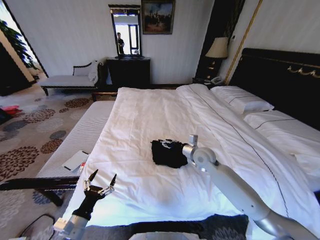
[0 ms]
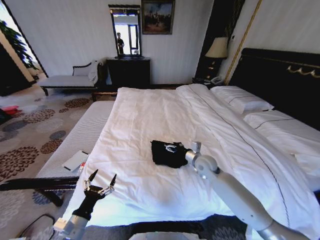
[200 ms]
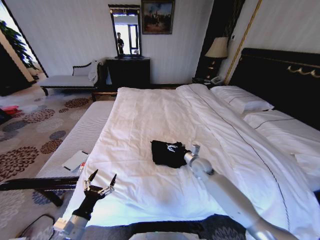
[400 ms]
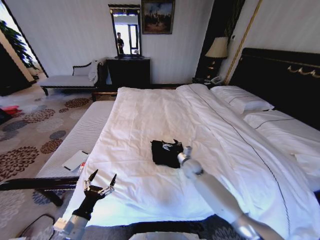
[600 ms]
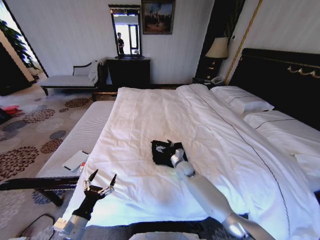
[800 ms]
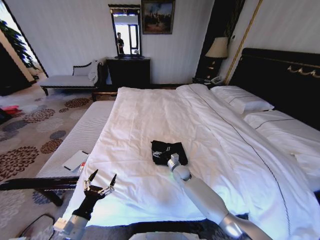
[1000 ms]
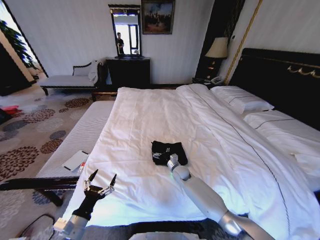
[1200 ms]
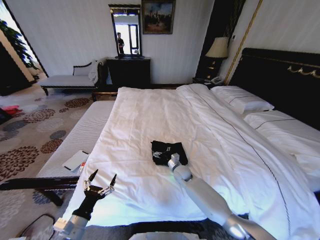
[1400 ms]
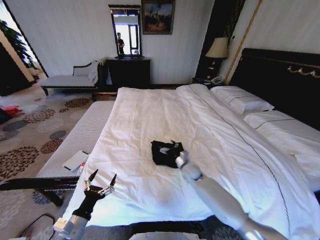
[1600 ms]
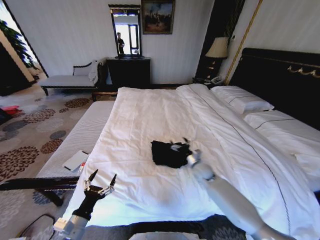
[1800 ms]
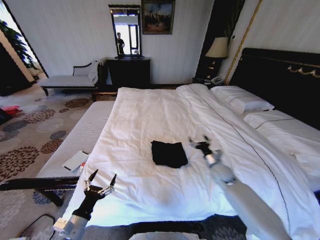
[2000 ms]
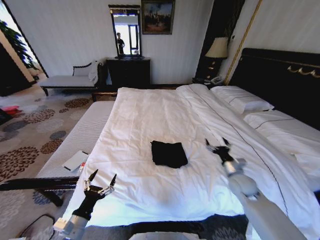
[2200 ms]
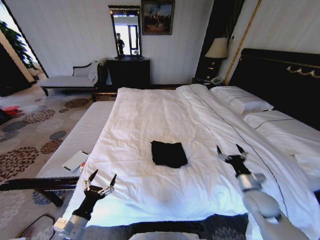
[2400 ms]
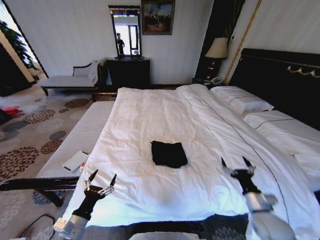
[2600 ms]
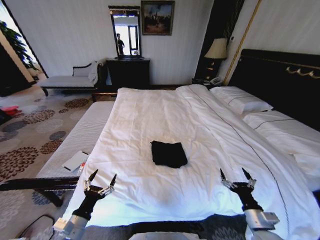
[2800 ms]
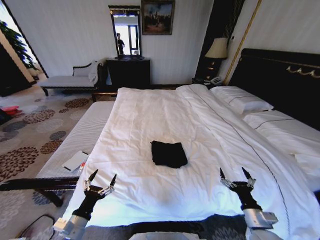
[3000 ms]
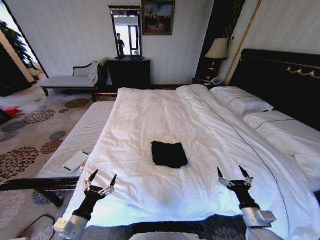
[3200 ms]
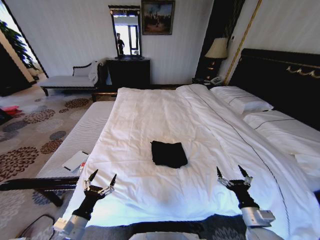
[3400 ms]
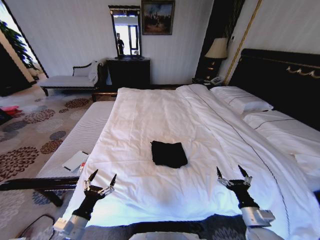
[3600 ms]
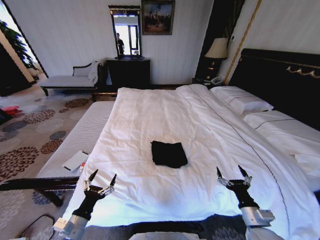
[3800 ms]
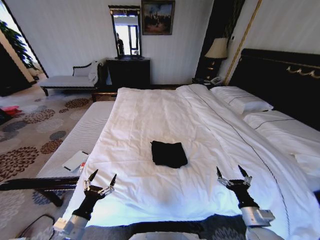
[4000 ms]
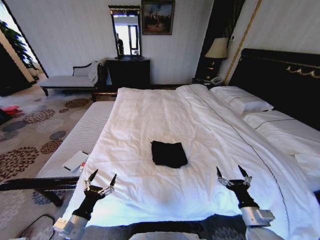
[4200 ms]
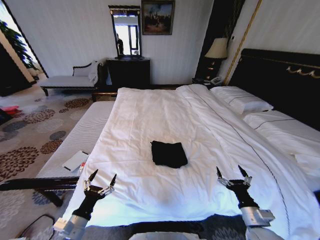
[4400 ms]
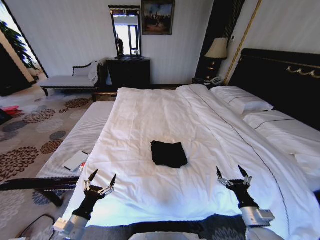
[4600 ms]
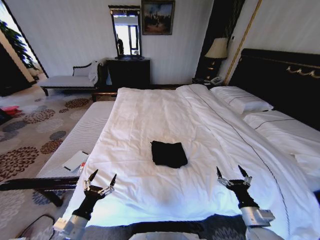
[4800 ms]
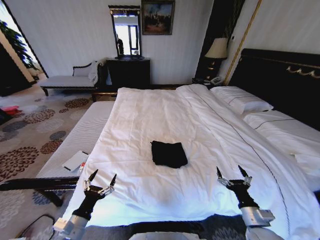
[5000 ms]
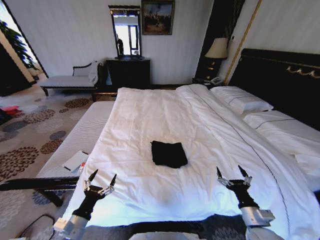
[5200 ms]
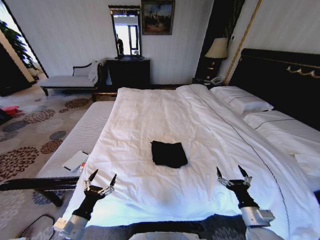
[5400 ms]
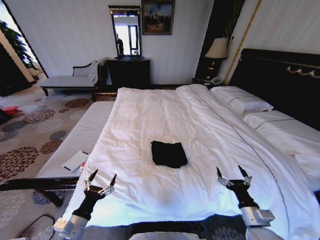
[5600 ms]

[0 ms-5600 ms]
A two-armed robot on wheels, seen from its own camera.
Task of the whole recording: Fold the clothes on the bed.
0 ms to 1400 ms: The right gripper moves downward and to the left, some 20 cm.
1400 ms to 2800 ms: The right gripper moves backward and to the right, some 35 cm.
2800 ms to 4200 ms: There are only small adjustments of the grippers.
4200 ms to 5600 ms: The two grippers keep their place.

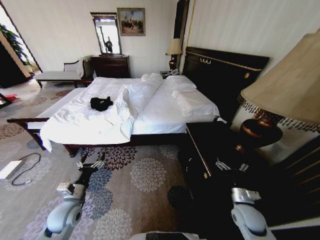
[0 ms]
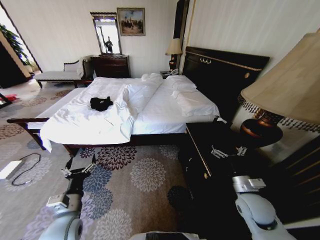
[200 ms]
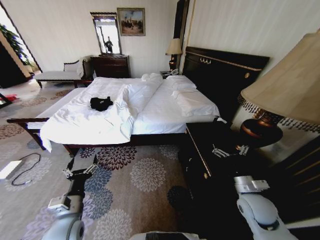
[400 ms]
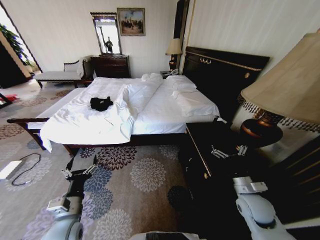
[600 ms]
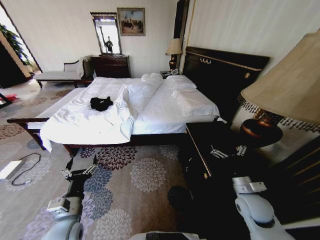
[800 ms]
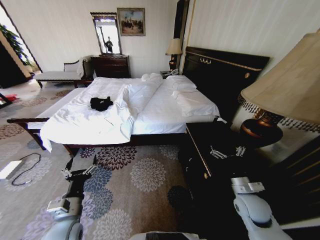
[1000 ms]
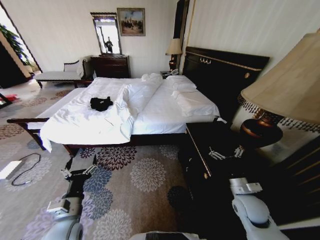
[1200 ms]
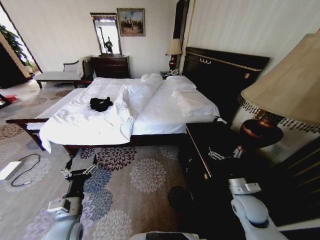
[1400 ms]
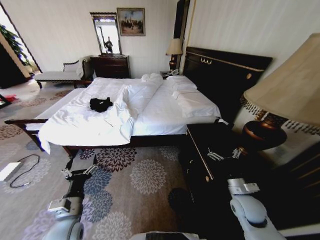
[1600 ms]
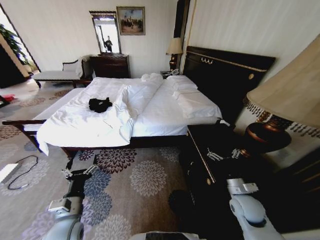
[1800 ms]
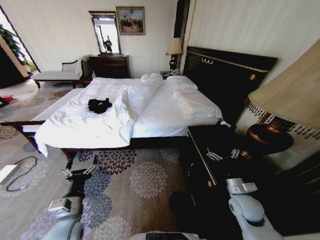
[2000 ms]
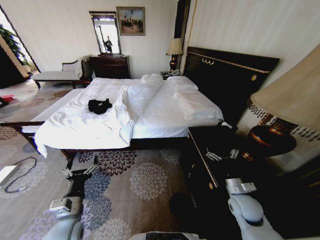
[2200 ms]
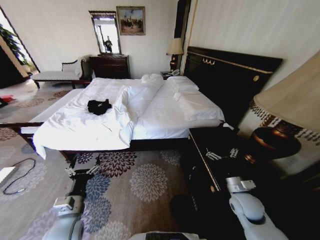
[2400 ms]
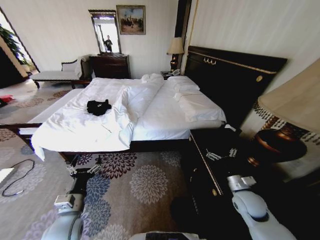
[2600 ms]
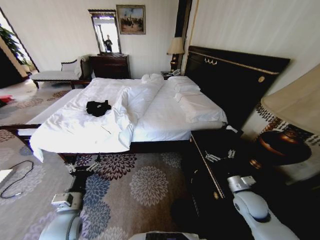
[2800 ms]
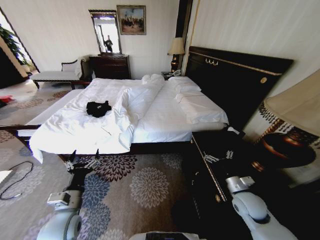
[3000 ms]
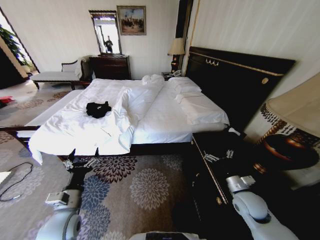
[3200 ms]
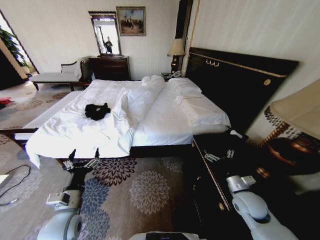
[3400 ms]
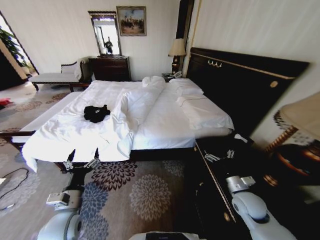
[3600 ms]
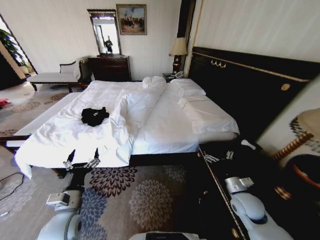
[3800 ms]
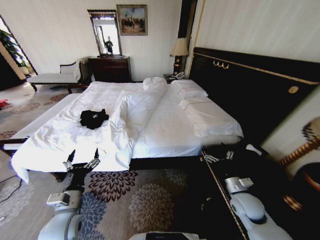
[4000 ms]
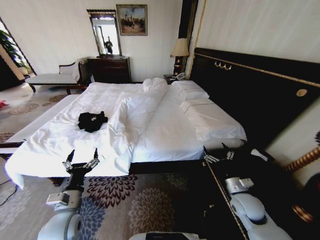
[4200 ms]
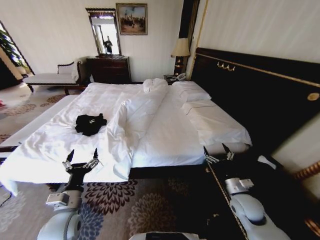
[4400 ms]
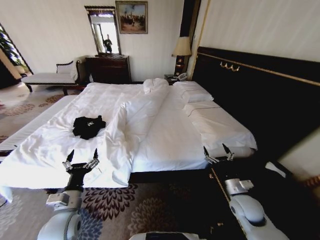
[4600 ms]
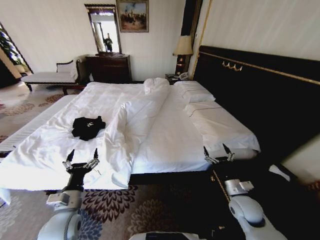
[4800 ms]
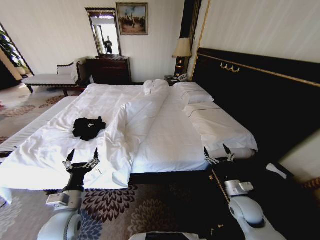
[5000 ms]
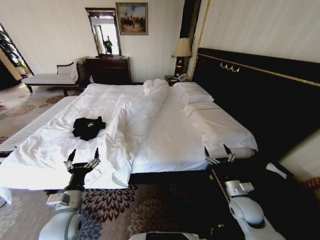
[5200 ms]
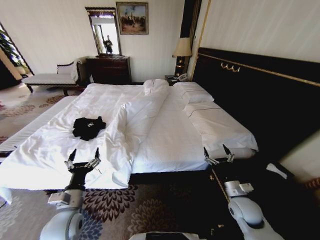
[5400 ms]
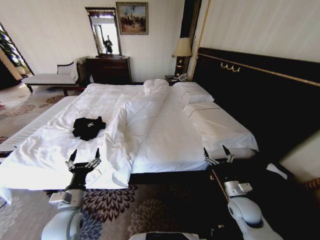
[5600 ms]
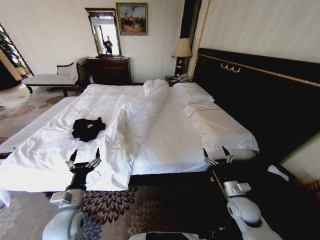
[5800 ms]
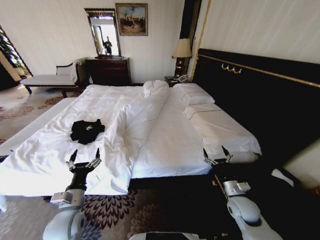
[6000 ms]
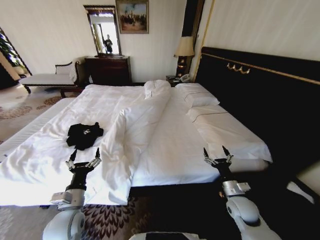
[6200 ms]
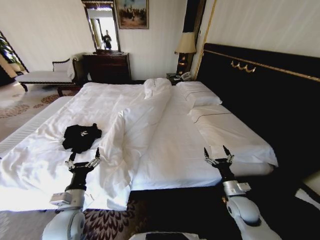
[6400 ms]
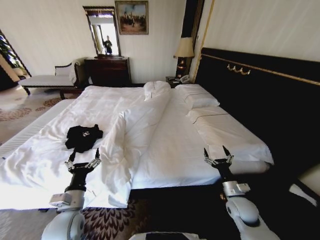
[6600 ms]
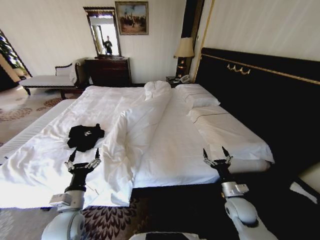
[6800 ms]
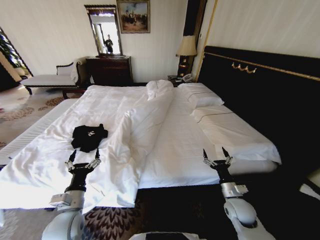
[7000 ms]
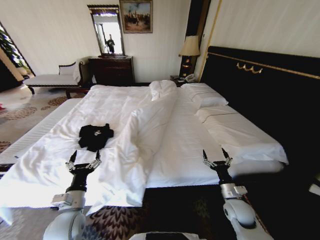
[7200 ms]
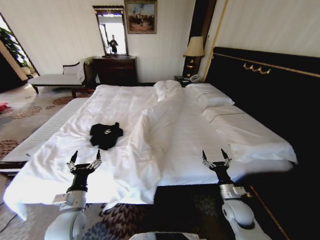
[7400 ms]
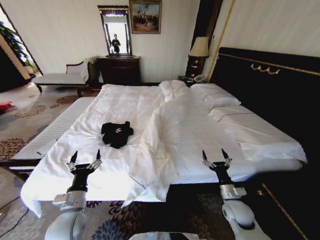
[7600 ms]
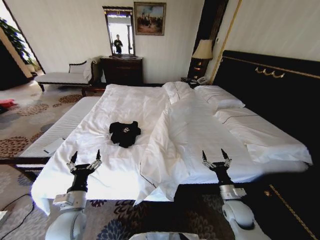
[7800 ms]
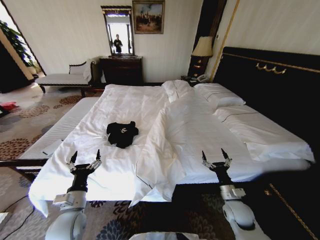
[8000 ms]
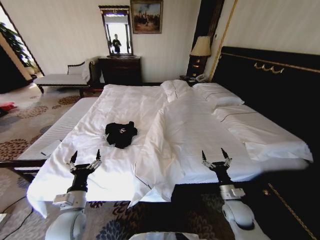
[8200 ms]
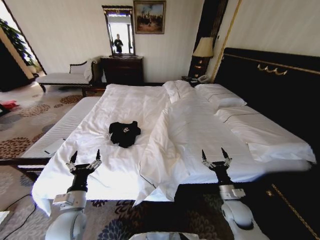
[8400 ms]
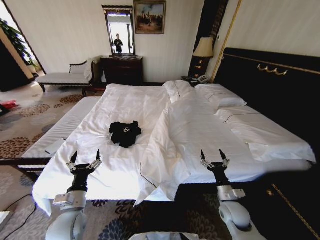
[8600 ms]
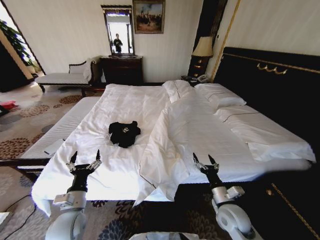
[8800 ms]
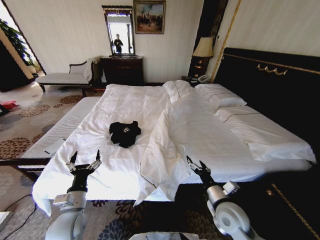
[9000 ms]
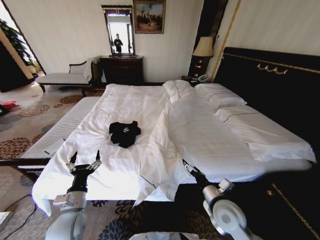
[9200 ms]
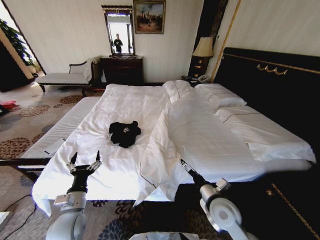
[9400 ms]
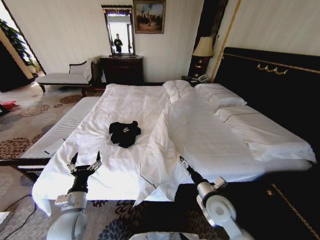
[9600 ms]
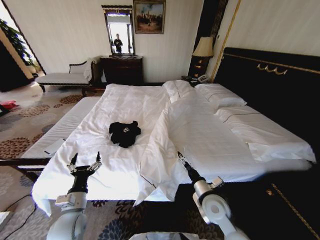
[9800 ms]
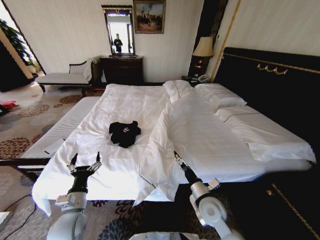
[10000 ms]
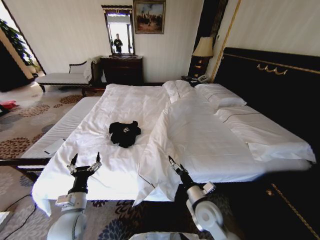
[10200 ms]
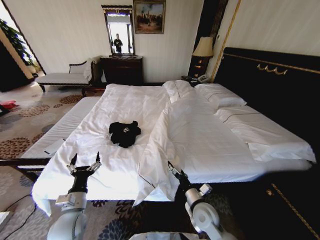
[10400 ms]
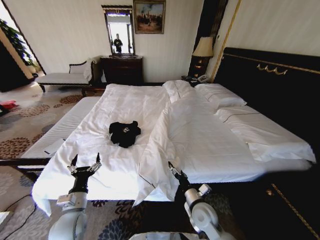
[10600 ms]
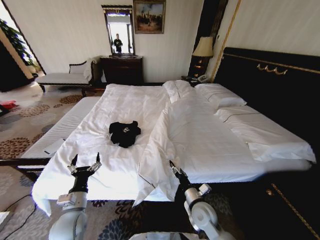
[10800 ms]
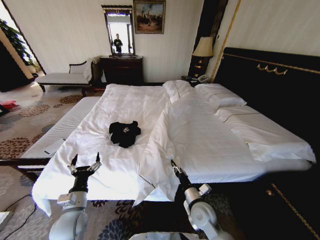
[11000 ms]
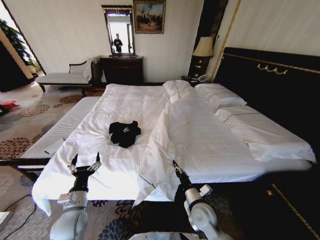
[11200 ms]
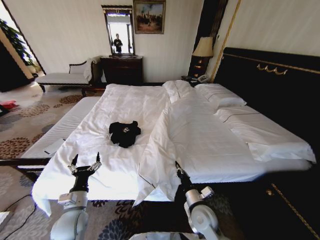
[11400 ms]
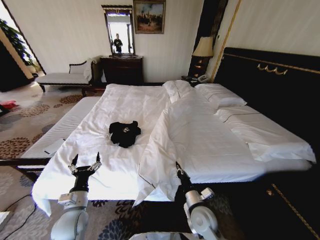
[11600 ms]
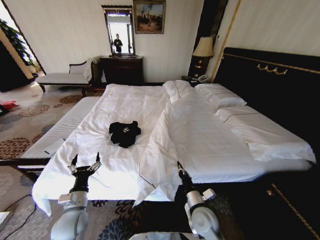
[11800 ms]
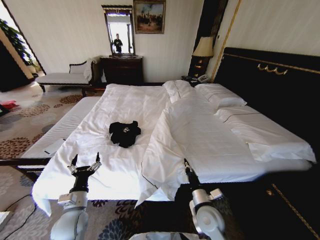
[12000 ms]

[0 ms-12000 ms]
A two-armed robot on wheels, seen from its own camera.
Task of the whole recording: Fold the clothes on the bed.
7600 ms to 9000 ms: The right gripper is displaced to the left and upward by about 10 cm.
9000 ms to 10400 ms: The right gripper goes roughly 10 cm to the left and downward.
10400 ms to 12000 ms: The right gripper closes up.

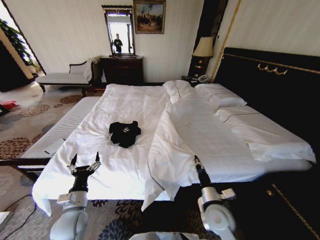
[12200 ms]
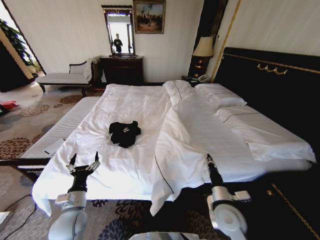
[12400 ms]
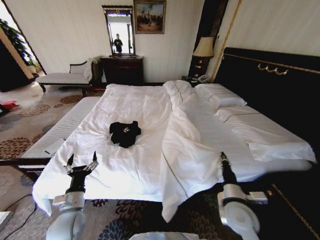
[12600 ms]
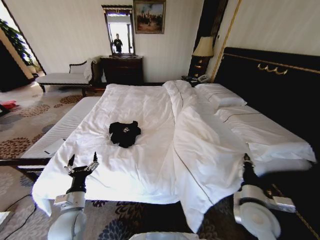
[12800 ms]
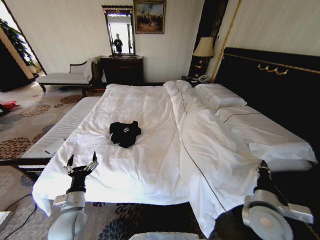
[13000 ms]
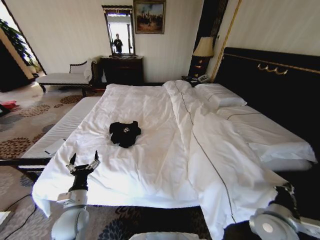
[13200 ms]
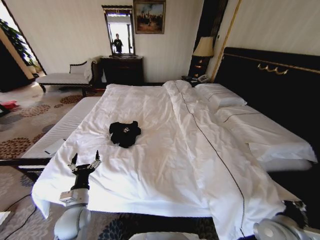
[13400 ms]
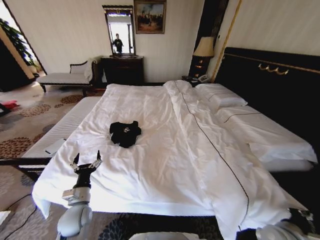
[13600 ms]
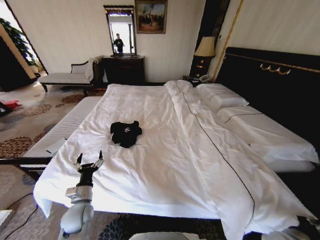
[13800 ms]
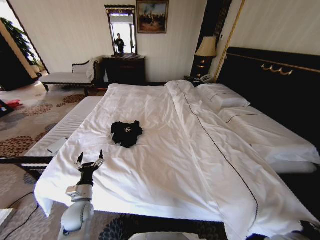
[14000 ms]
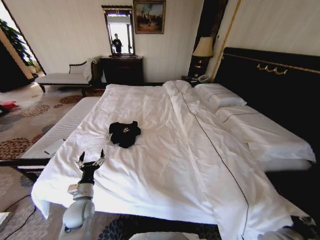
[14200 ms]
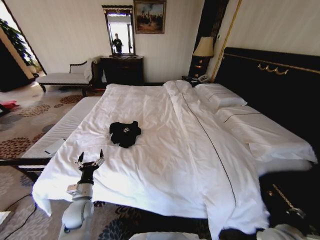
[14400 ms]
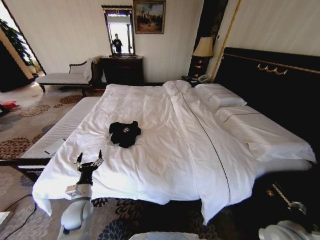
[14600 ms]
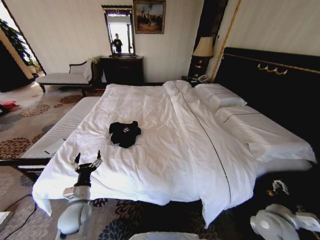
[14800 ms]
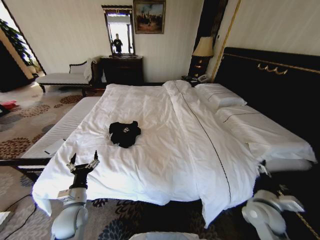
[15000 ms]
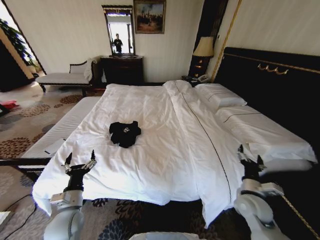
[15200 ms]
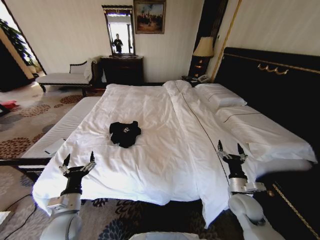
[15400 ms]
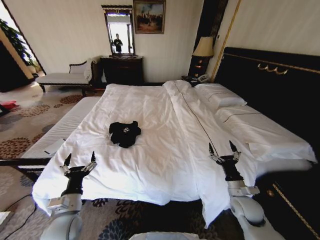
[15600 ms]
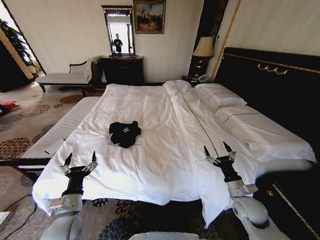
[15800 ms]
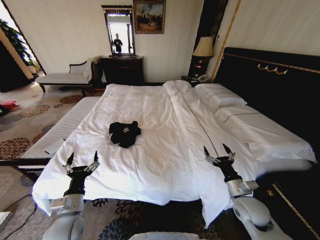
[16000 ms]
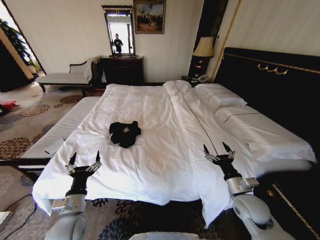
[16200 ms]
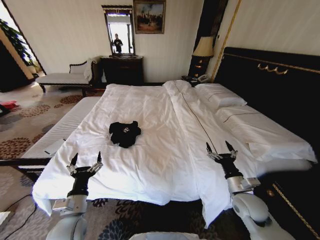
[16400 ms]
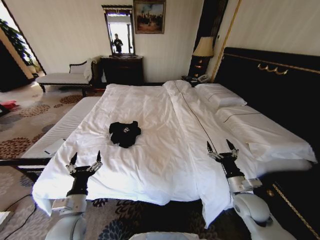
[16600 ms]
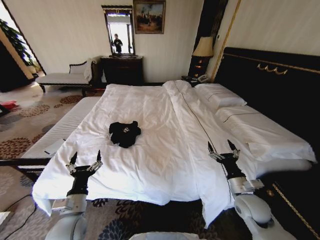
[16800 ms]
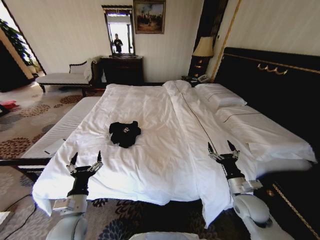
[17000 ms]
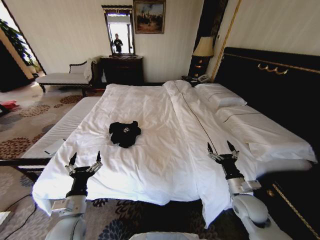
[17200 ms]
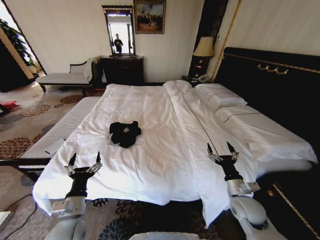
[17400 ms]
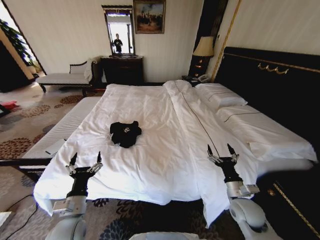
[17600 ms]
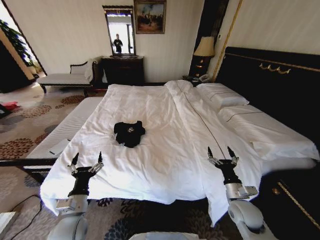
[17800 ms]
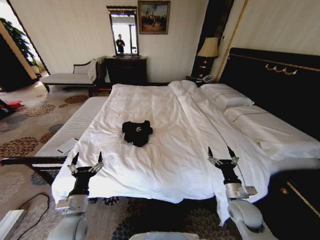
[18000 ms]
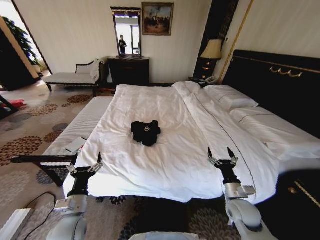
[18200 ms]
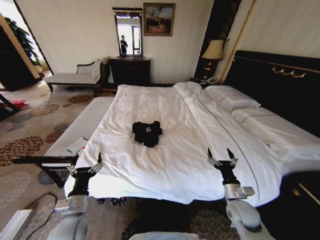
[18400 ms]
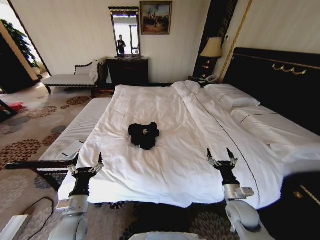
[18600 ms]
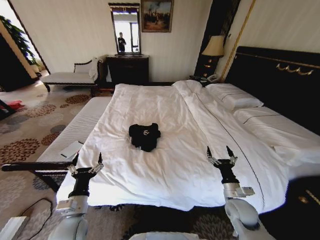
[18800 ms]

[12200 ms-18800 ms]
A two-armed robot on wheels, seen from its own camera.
Task of the whole recording: Fold the clothes on the bed.
12200 ms to 13800 ms: The right gripper heads to the right, covering roughly 20 cm.
13800 ms to 15400 ms: The left gripper ends up about 5 cm from where it was. The right gripper moves forward and to the left, some 15 cm, and opens.
